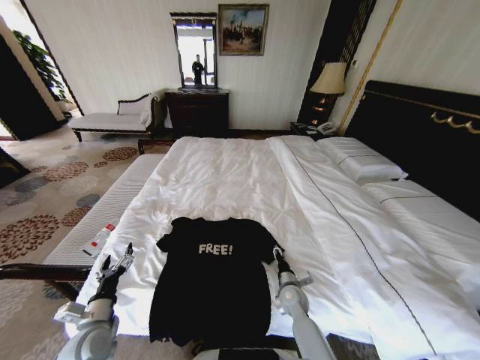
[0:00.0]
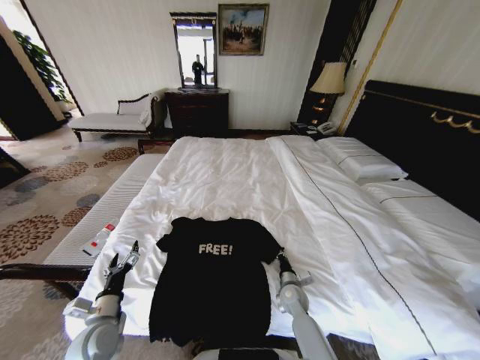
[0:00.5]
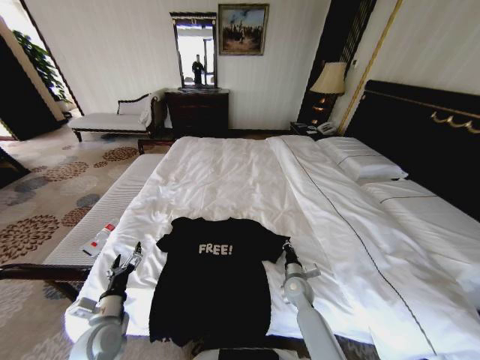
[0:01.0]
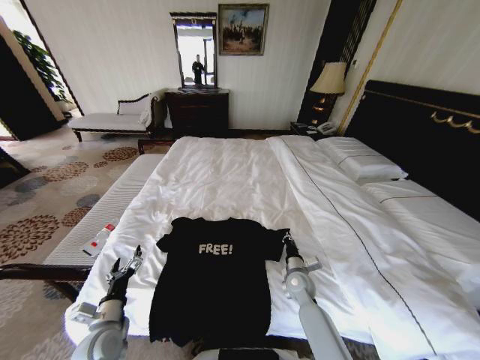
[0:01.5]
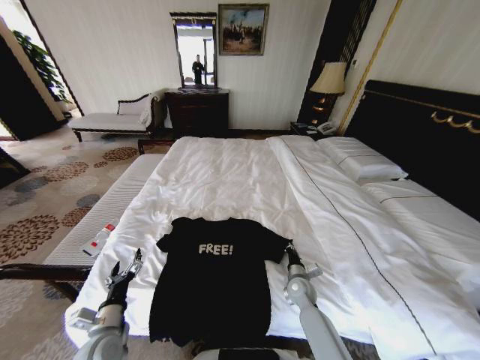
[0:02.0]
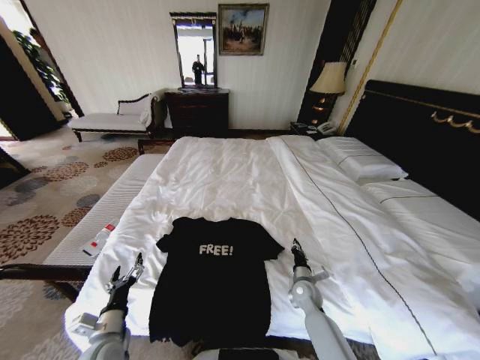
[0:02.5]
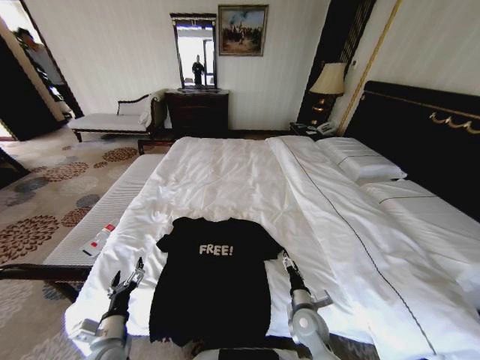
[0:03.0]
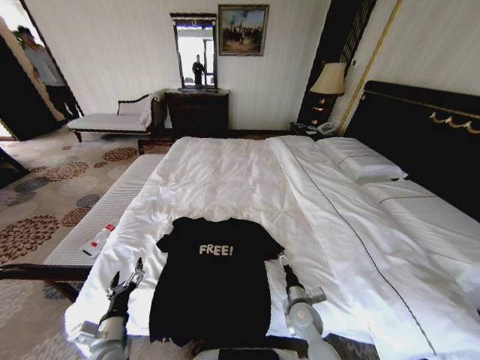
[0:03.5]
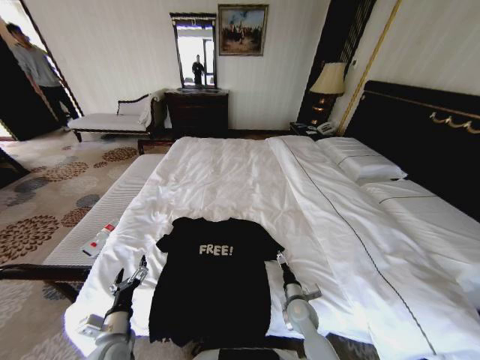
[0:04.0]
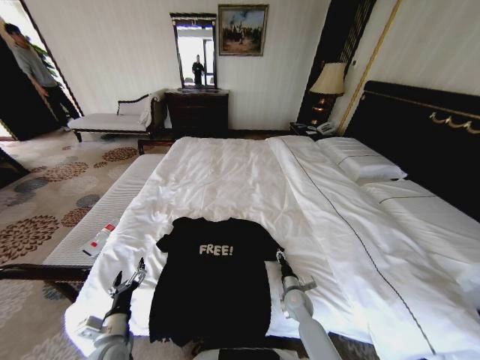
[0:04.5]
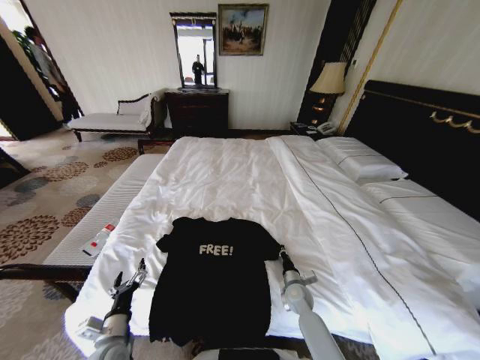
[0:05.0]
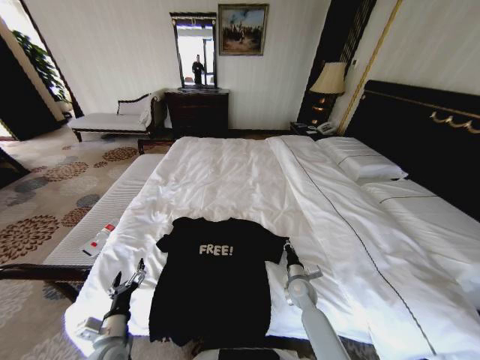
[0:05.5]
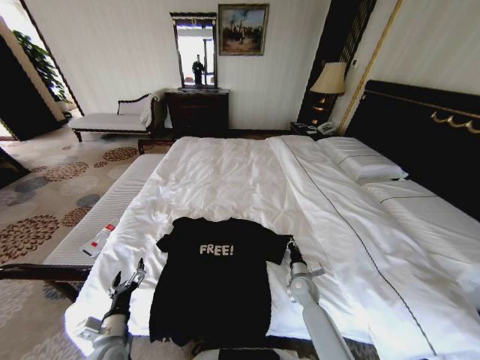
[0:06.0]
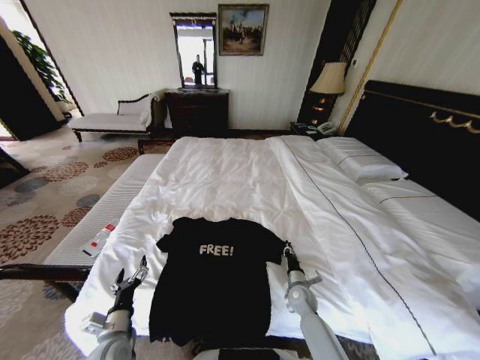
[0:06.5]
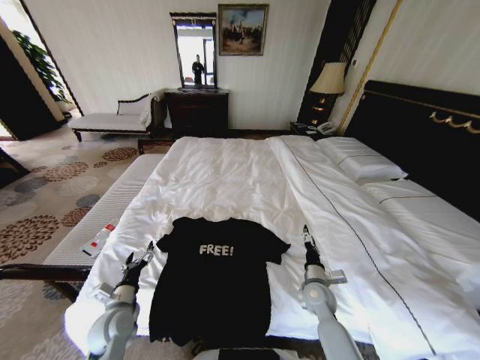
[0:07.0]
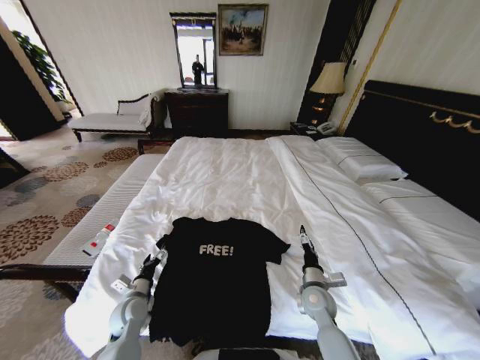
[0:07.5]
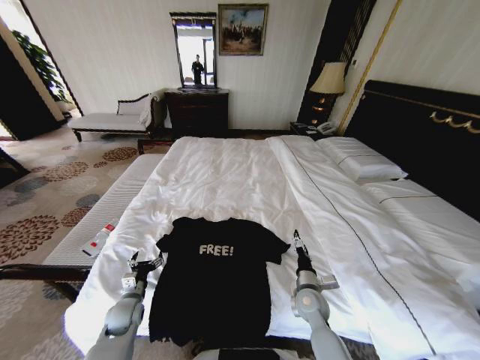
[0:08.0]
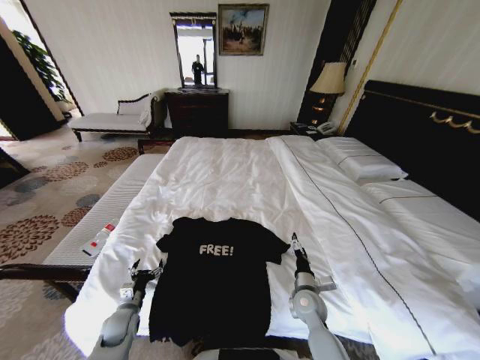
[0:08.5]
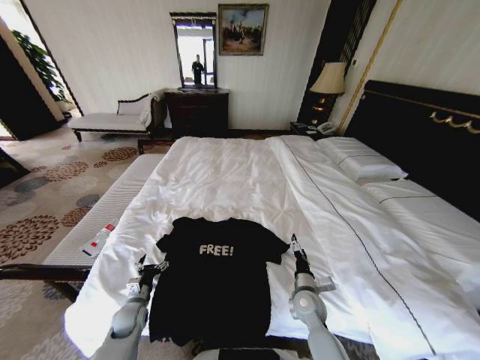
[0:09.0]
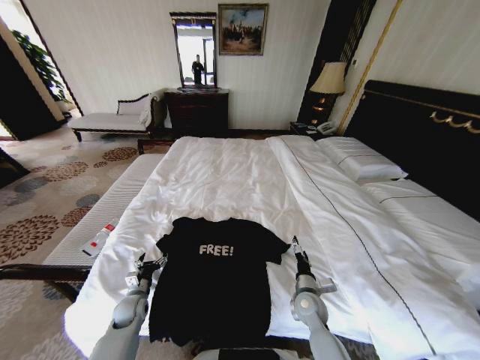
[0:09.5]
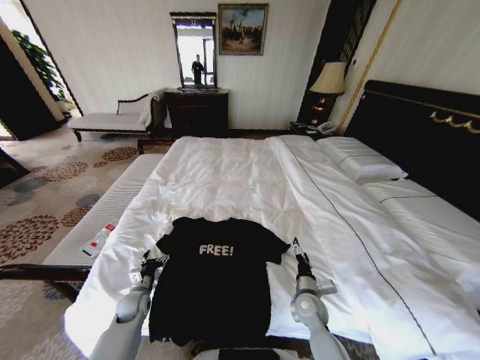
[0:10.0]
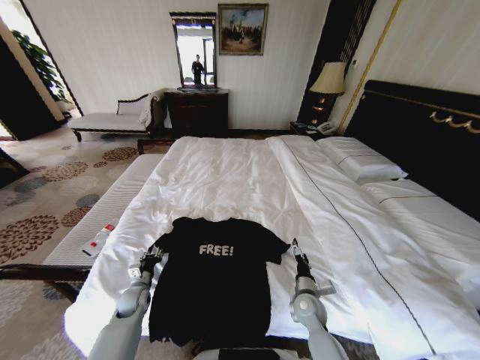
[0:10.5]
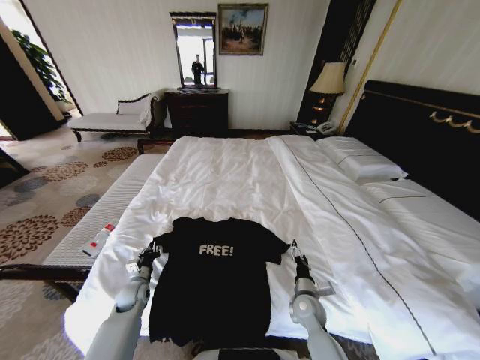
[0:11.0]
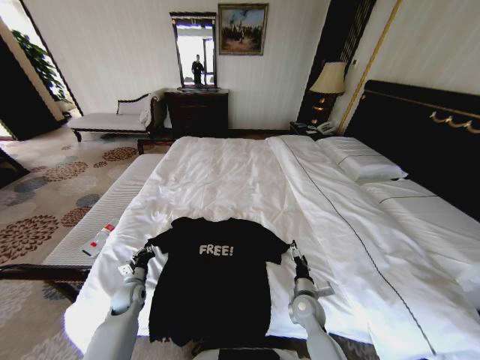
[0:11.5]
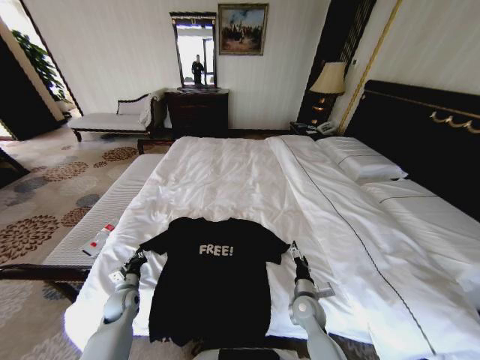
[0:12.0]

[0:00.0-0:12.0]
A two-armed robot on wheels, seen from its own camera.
Task of the whole recording: Fold the clothes on the bed.
0:00.0 to 0:02.0: The right gripper closes its fingers.
0:02.0 to 0:04.0: The right gripper is displaced backward by approximately 5 cm, and opens up.
0:04.0 to 0:06.0: The right gripper heads forward, covering some 10 cm, and closes up.
0:06.0 to 0:08.0: The left gripper goes approximately 10 cm forward. The right gripper shifts roughly 10 cm upward and backward, and opens up.
0:08.0 to 0:10.0: The left gripper ends up roughly 5 cm from where it was.
0:10.0 to 0:12.0: The left gripper closes its fingers.

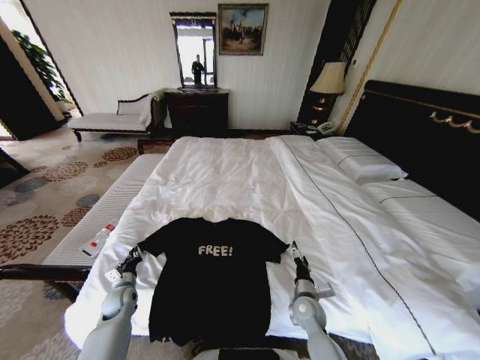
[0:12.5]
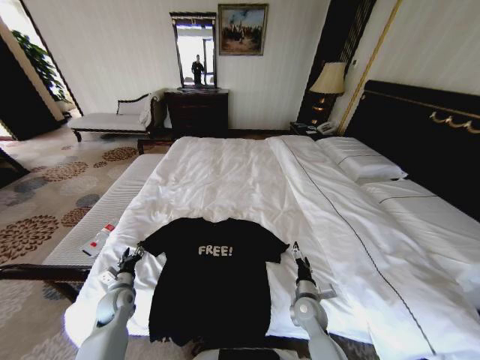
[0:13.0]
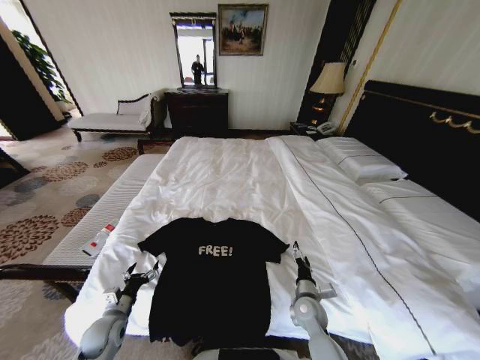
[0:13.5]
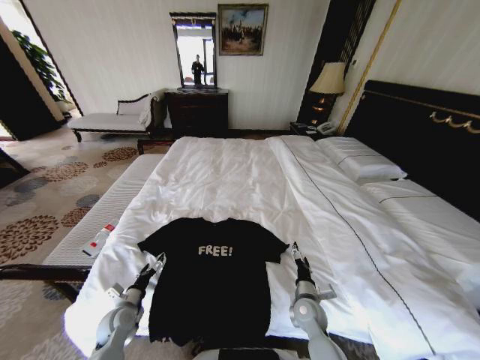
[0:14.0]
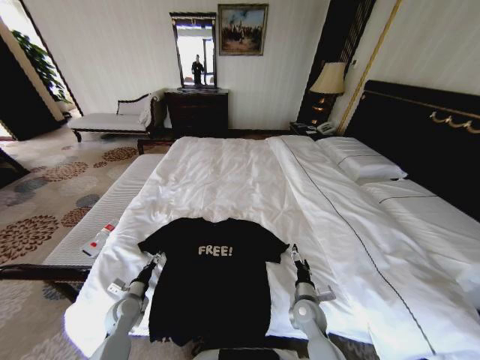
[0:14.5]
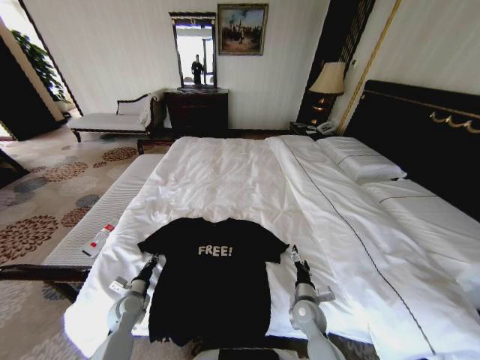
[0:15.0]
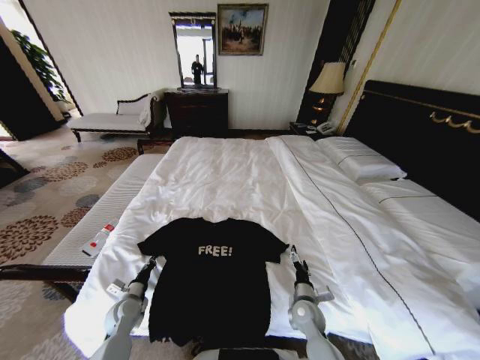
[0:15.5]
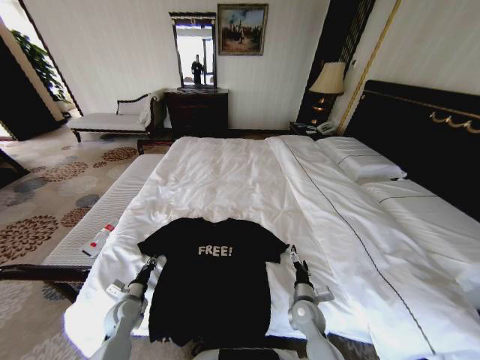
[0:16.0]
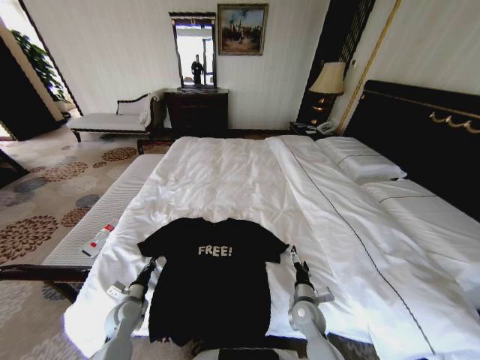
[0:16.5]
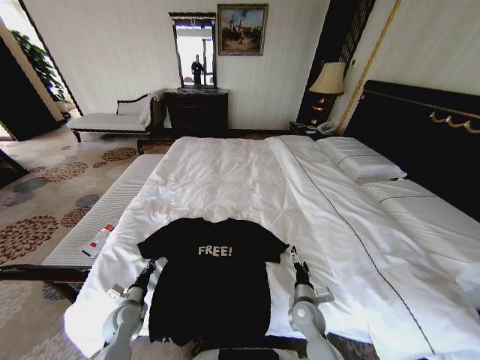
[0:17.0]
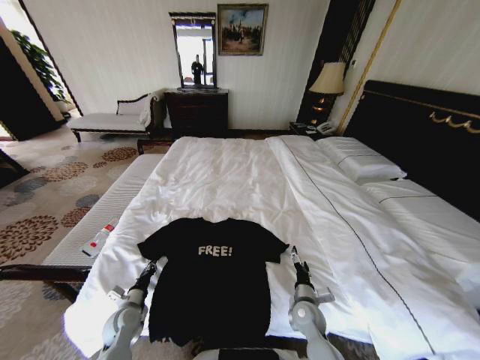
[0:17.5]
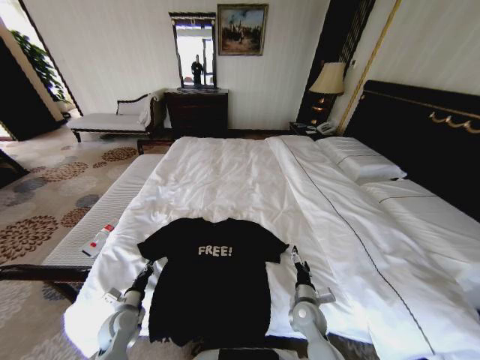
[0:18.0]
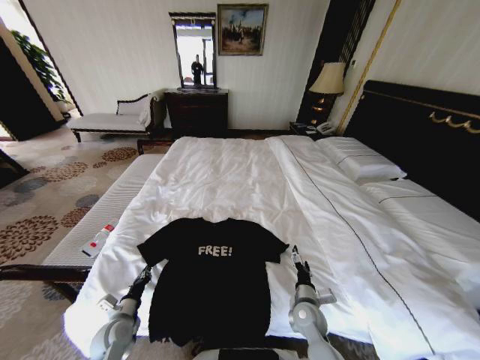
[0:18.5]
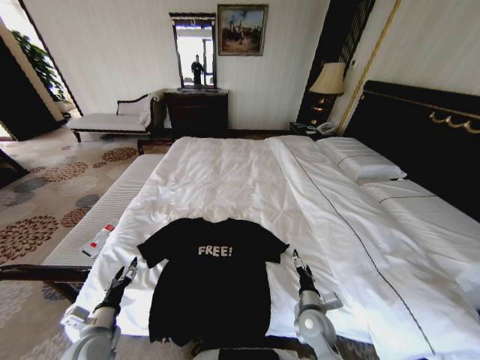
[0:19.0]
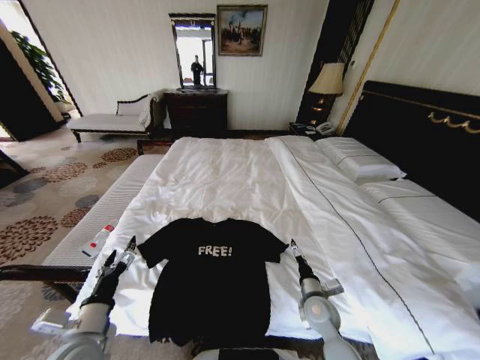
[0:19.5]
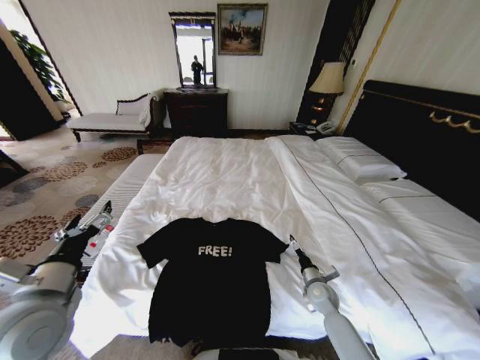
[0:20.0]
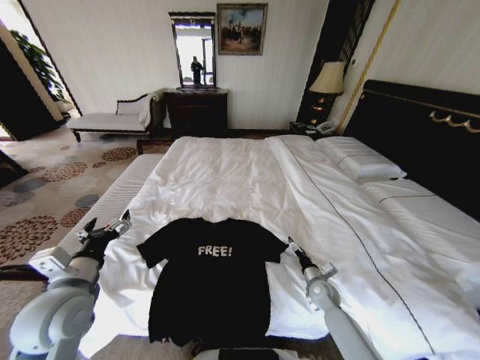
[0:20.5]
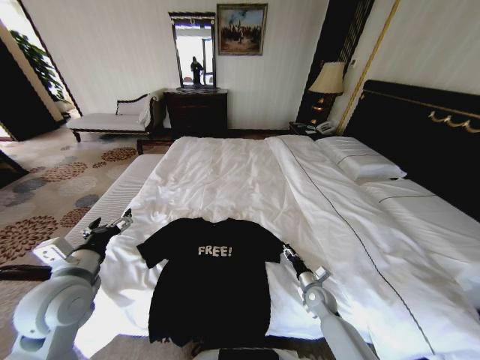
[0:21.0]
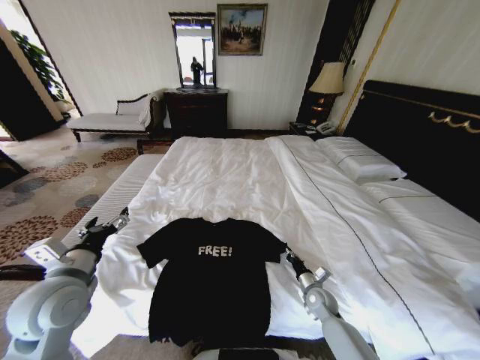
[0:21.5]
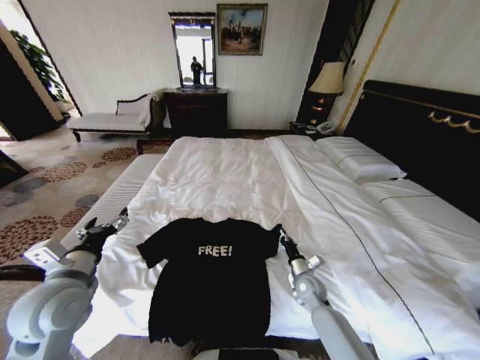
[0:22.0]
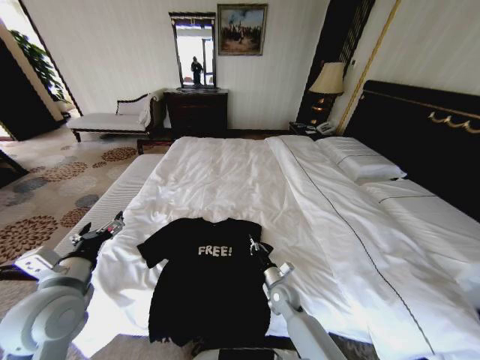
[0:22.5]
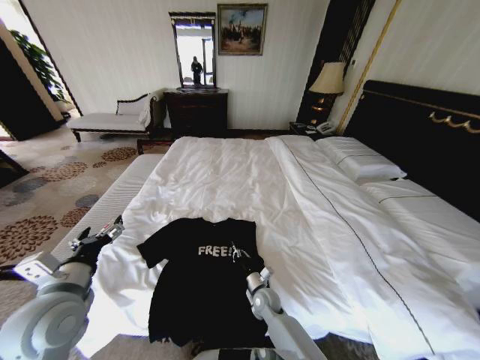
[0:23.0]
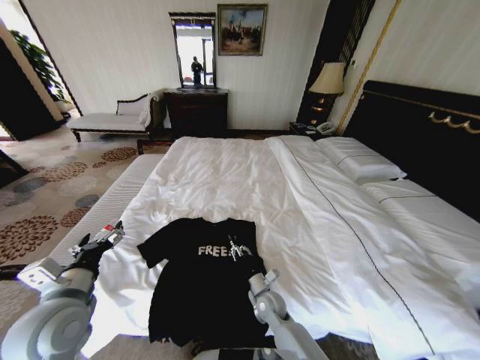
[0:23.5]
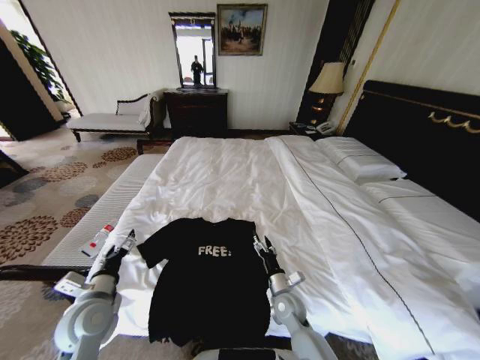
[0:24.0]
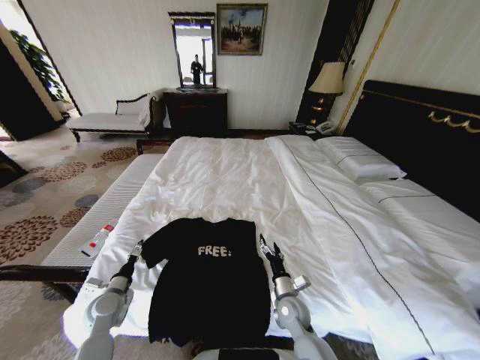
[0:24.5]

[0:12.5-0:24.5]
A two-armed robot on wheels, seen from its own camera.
Task of the whole recording: Fold the clothes on the bed.
0:12.5 to 0:14.5: The left gripper opens its fingers.
0:14.5 to 0:16.5: The left gripper closes up.
0:16.5 to 0:18.5: The left gripper travels backward by approximately 5 cm.
0:18.5 to 0:20.5: The right gripper travels to the right and forward by about 10 cm. Meanwhile the left gripper shifts some 25 cm upward, and opens.
0:20.5 to 0:22.5: The right gripper is displaced to the left by about 15 cm, and closes.
0:22.5 to 0:24.5: The right gripper shifts by roughly 5 cm, and opens up; the left gripper goes approximately 20 cm downward.

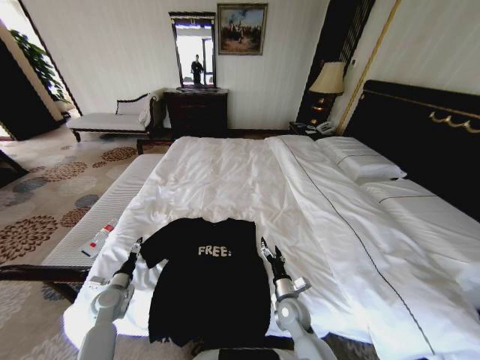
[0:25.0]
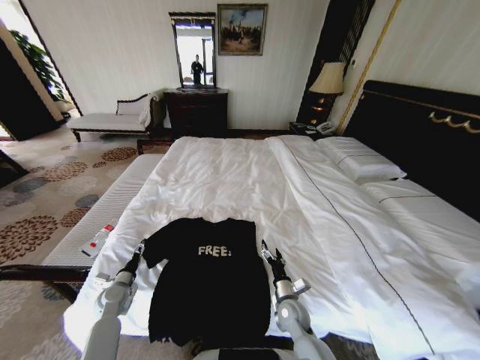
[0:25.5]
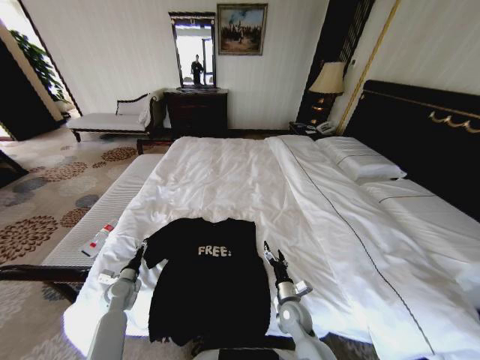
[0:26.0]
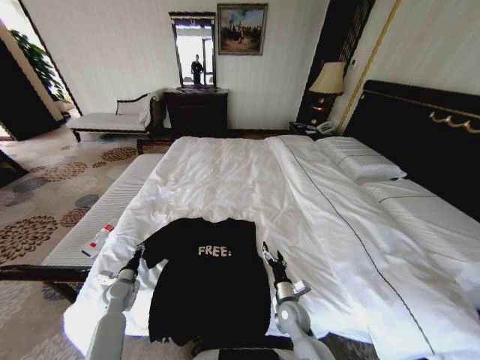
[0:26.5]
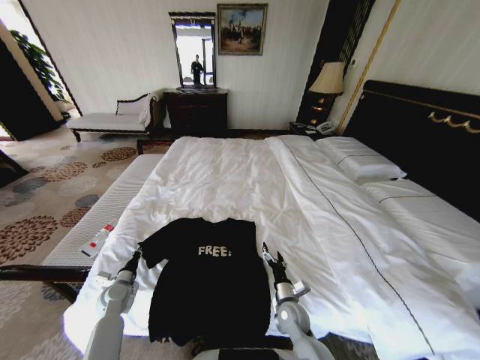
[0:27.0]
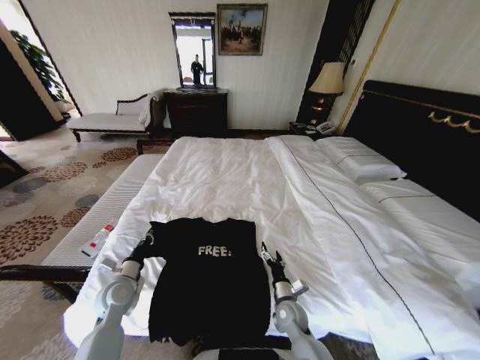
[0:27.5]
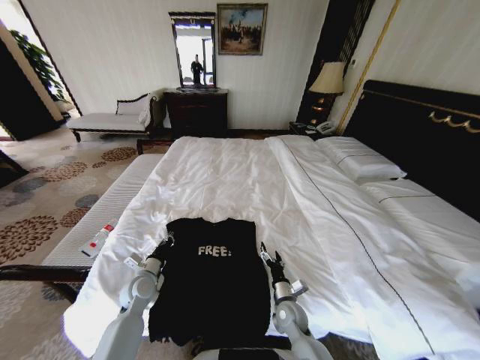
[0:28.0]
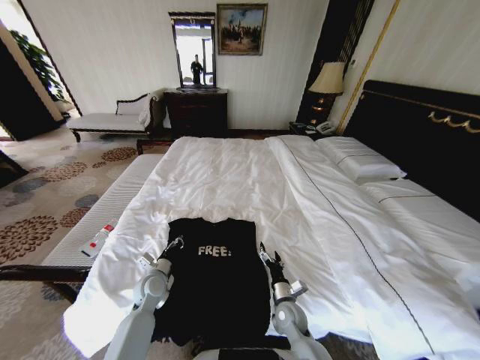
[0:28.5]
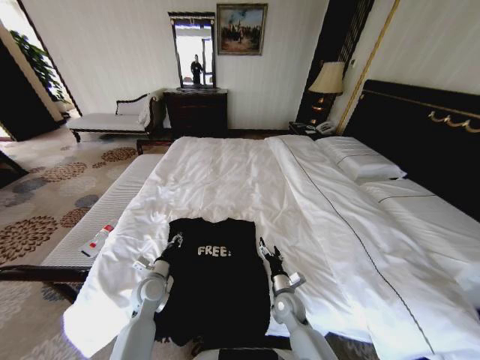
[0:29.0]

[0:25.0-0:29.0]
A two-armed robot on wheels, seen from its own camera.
Task of the whole recording: Fold the clothes on the bed.
0:25.0 to 0:27.0: The left gripper closes its fingers.
0:27.0 to 0:29.0: The left gripper goes roughly 15 cm to the right and upward, and opens its fingers.
